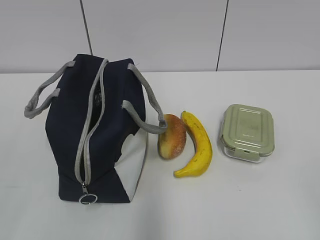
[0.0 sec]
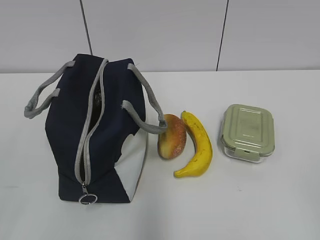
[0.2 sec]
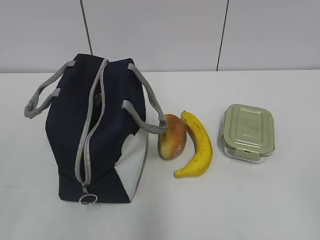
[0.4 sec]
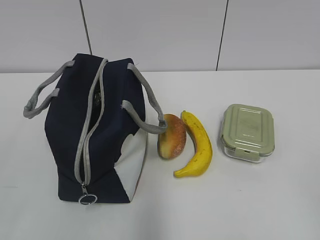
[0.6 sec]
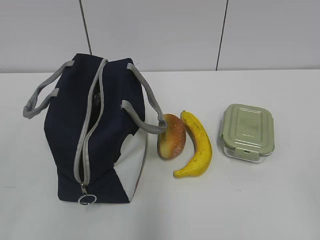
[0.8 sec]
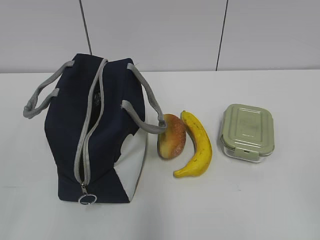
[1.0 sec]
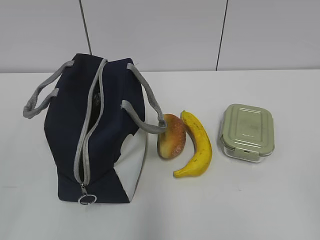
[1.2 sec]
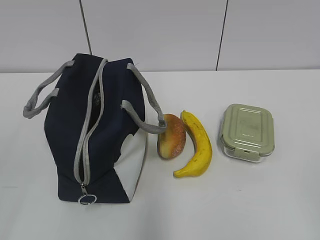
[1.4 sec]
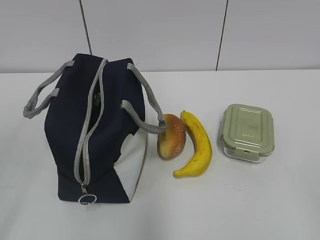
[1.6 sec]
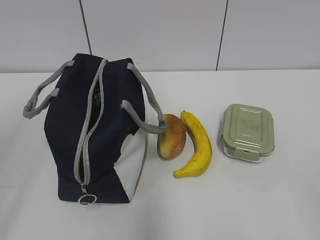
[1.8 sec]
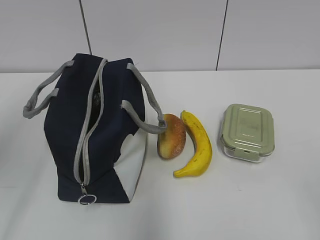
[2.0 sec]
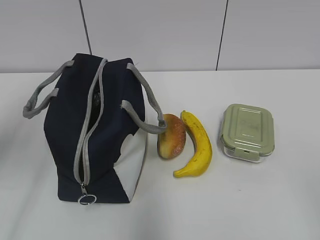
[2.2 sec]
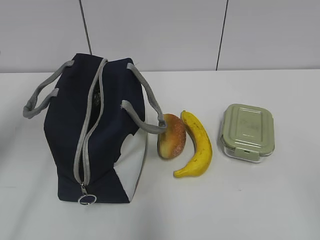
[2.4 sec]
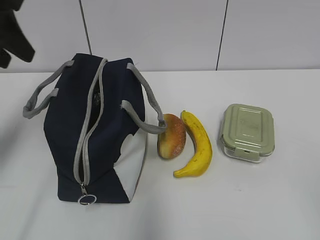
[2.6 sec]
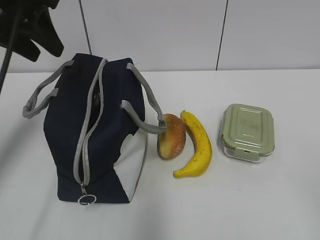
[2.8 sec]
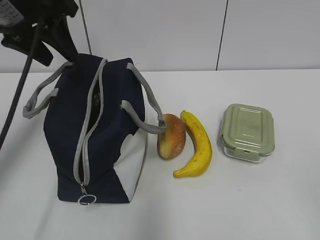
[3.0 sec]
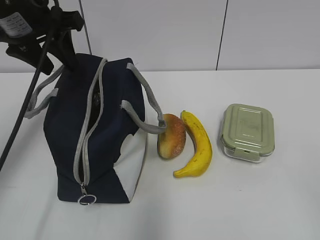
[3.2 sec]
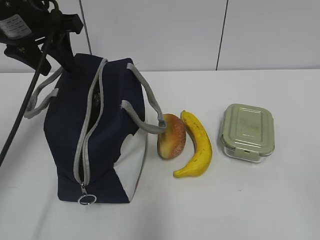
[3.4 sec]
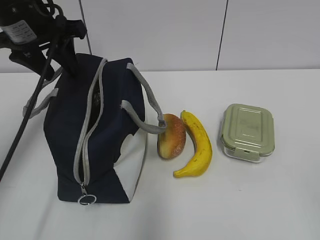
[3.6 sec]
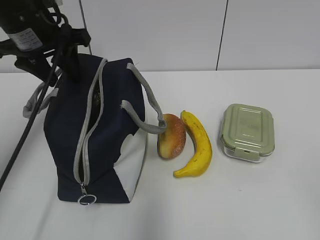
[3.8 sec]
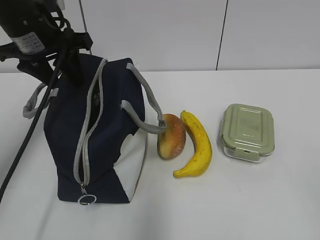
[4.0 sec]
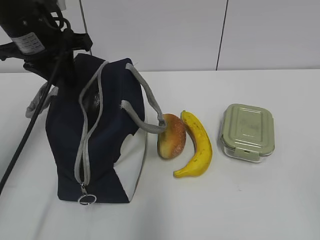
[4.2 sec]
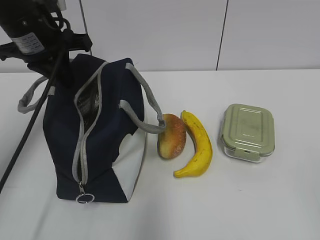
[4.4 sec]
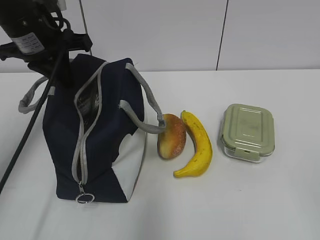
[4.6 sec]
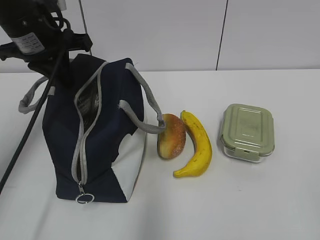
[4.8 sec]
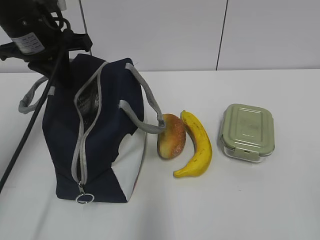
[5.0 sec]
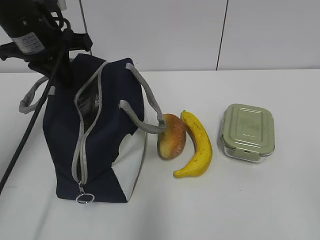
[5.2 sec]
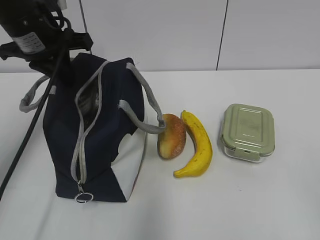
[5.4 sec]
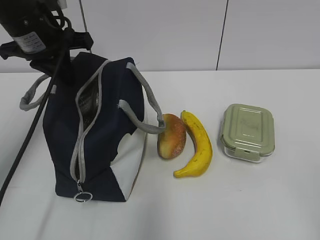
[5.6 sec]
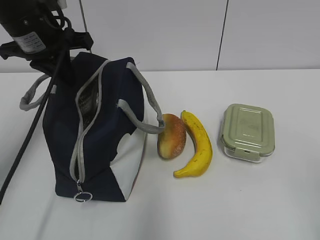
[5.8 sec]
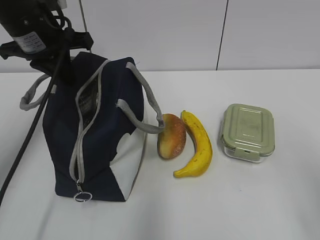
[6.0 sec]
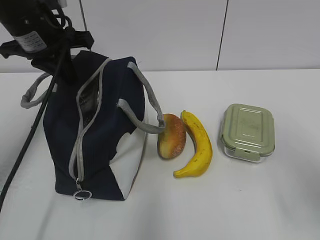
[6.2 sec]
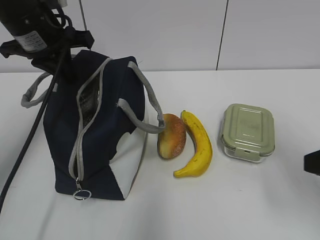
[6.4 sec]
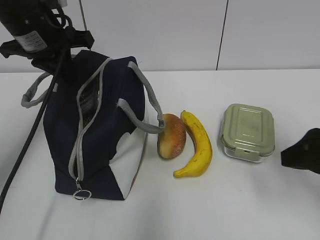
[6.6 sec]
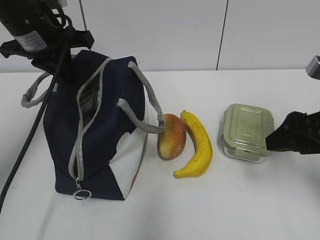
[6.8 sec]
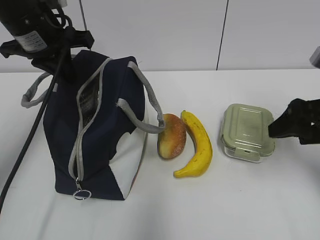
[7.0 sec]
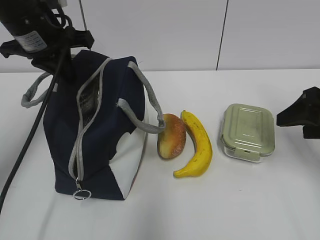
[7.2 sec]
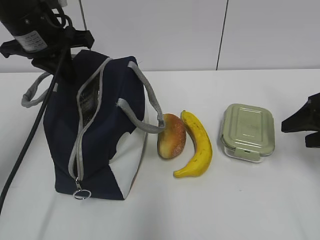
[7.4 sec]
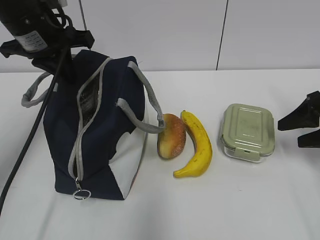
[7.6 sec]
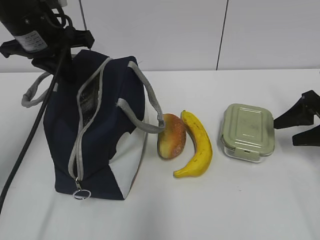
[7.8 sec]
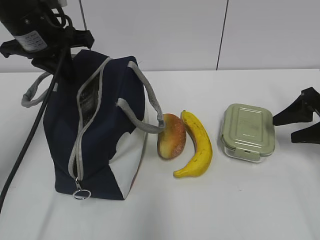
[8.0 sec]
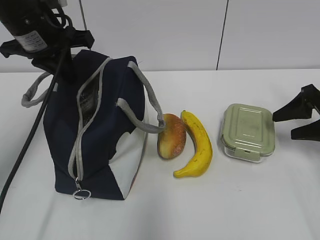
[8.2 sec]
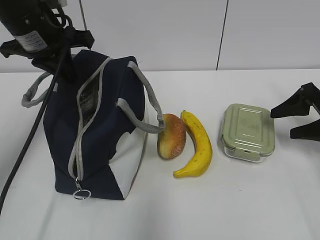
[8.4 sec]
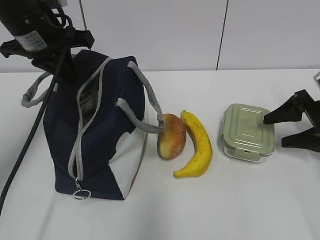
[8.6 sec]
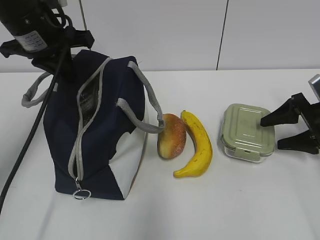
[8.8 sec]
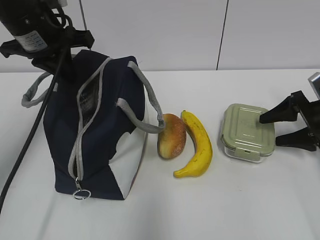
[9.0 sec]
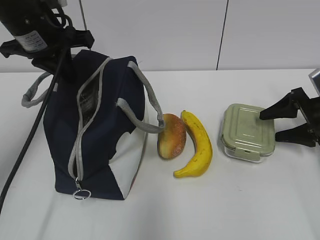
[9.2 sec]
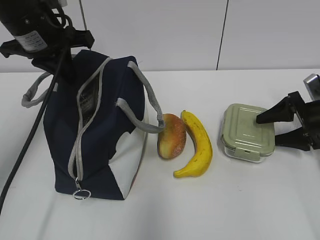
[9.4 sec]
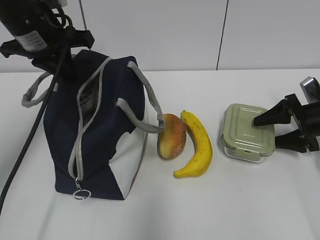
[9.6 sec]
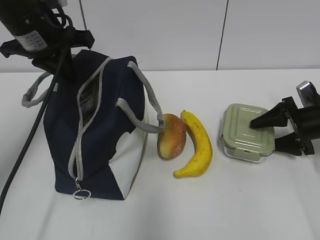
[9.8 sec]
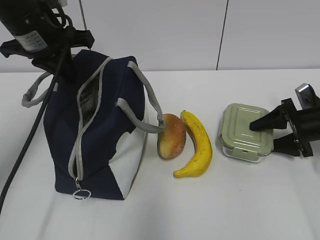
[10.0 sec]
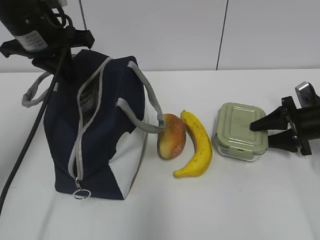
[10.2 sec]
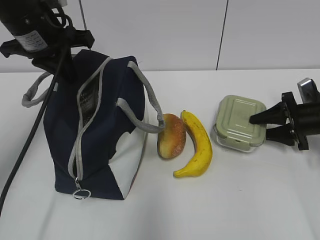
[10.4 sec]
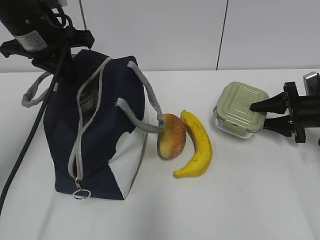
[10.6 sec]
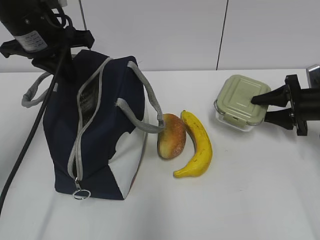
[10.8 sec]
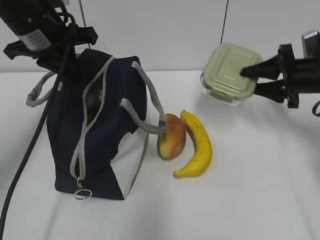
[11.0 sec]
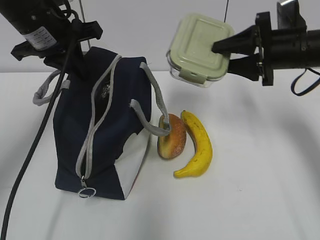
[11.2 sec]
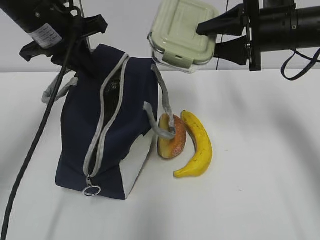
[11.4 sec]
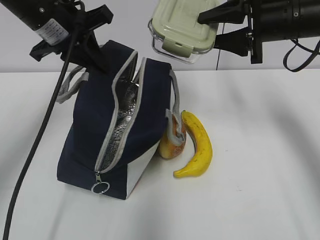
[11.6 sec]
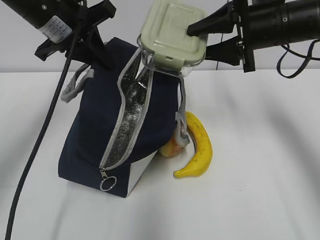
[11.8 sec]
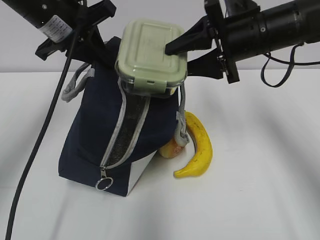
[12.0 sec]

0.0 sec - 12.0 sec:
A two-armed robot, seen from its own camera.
1.6 sec - 3.0 sec: The left gripper heads forward, covering approximately 30 cm.
3.0 sec - 4.4 sec: The left gripper goes about 5 cm downward, and closes its fingers.
4.4 sec - 6.0 sec: The right gripper heads forward, covering some 10 cm.
6.0 sec - 7.6 sec: The right gripper is displaced forward by some 25 cm.
7.6 sec - 9.0 sec: The right gripper shifts by roughly 5 cm.
9.0 sec - 10.4 sec: The right gripper closes its fingers.
10.4 sec - 12.0 sec: The right gripper moves upward and to the left, about 25 cm.

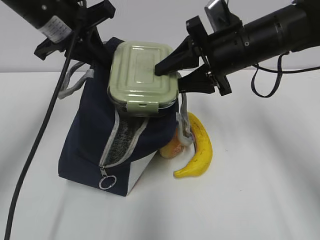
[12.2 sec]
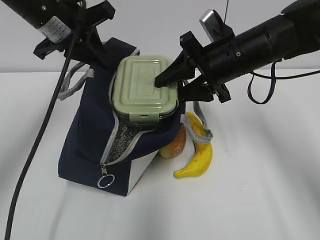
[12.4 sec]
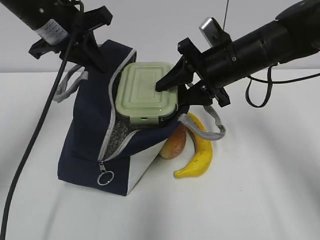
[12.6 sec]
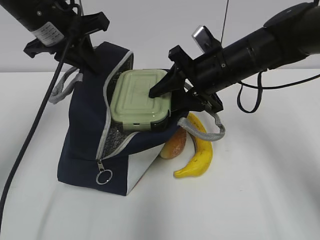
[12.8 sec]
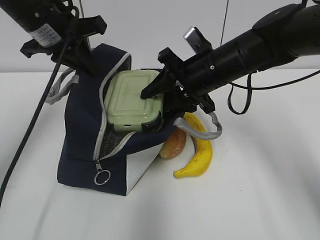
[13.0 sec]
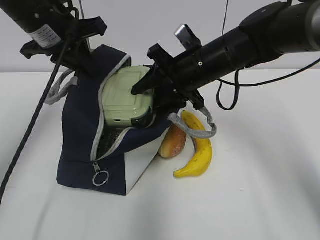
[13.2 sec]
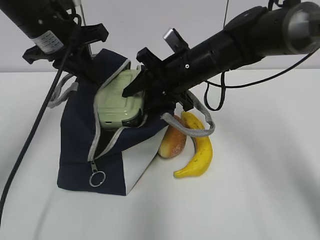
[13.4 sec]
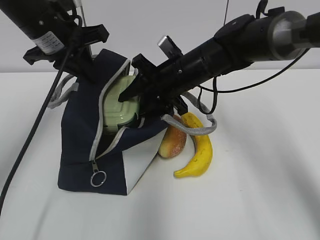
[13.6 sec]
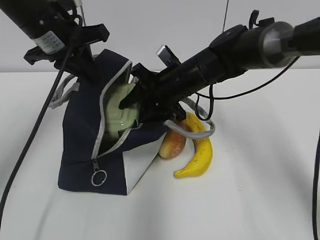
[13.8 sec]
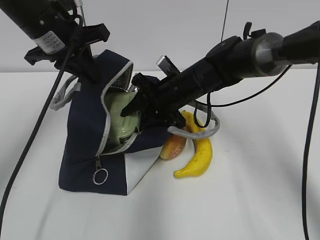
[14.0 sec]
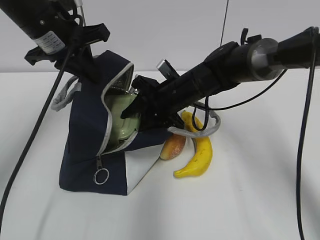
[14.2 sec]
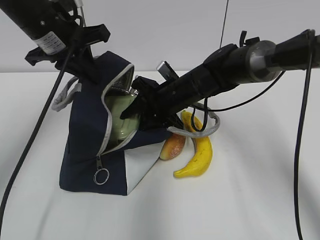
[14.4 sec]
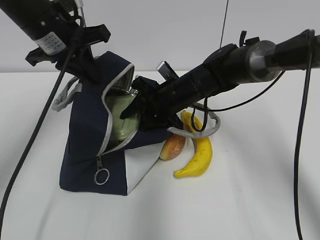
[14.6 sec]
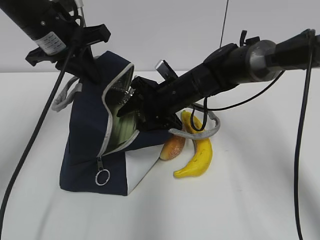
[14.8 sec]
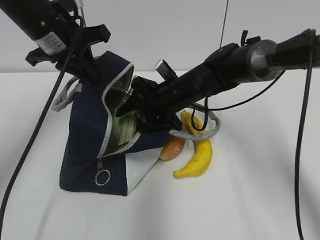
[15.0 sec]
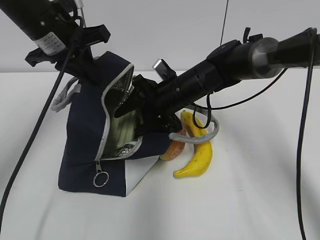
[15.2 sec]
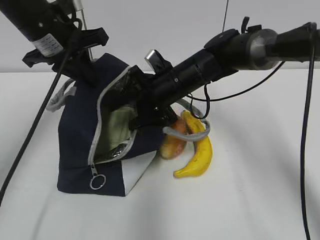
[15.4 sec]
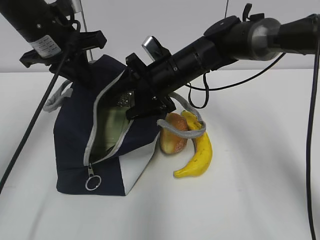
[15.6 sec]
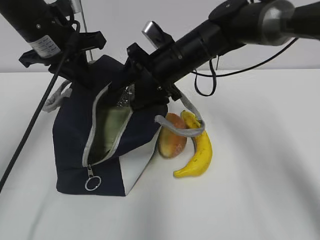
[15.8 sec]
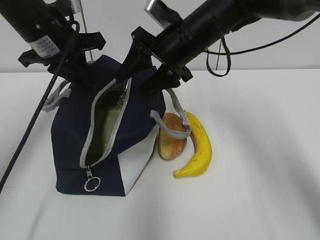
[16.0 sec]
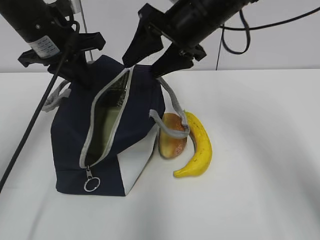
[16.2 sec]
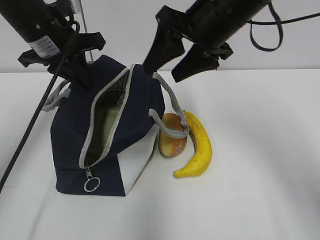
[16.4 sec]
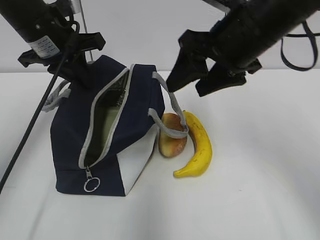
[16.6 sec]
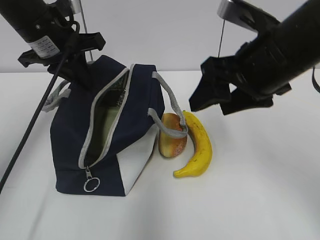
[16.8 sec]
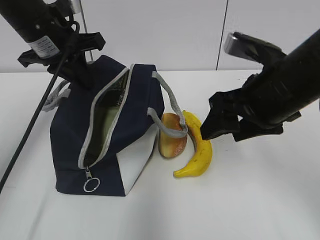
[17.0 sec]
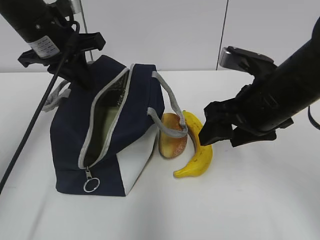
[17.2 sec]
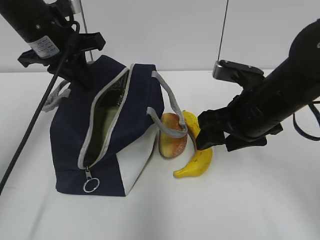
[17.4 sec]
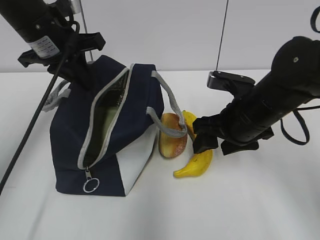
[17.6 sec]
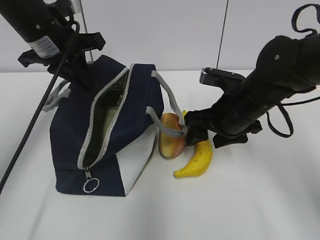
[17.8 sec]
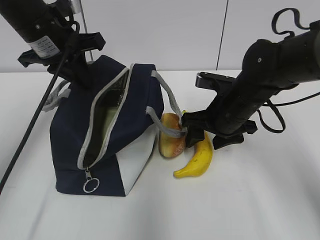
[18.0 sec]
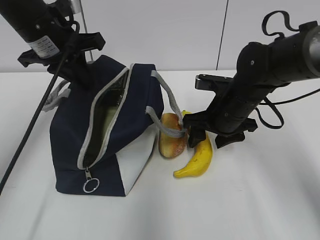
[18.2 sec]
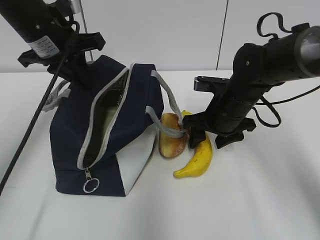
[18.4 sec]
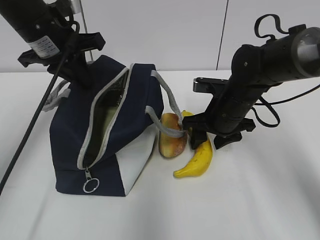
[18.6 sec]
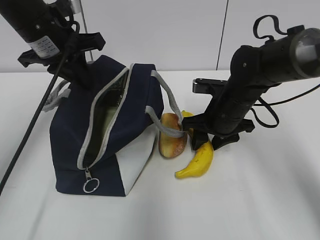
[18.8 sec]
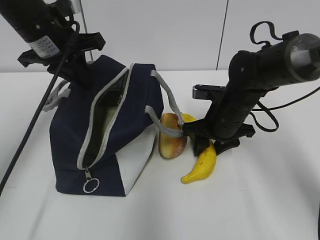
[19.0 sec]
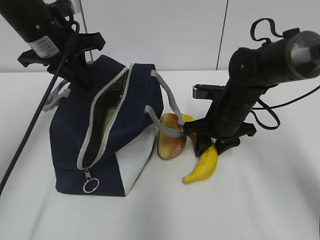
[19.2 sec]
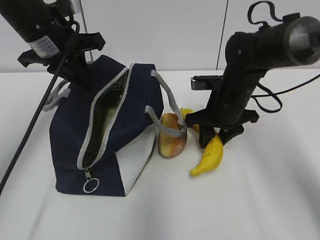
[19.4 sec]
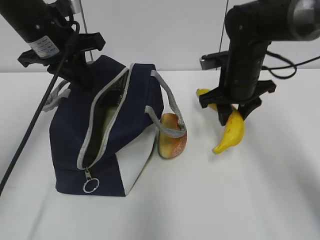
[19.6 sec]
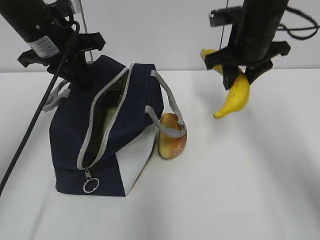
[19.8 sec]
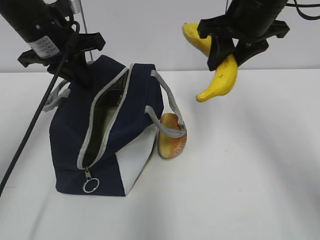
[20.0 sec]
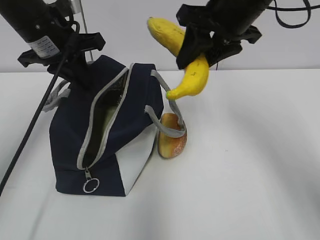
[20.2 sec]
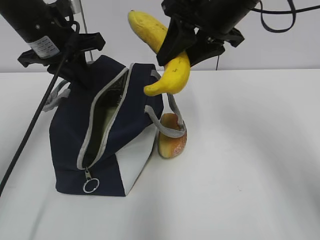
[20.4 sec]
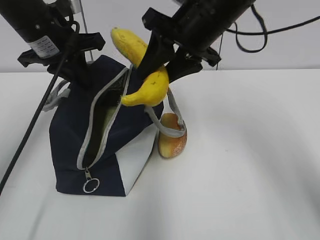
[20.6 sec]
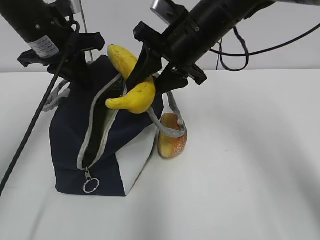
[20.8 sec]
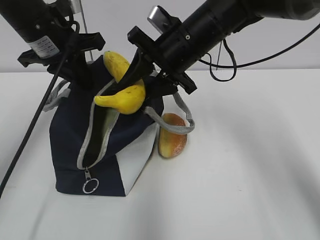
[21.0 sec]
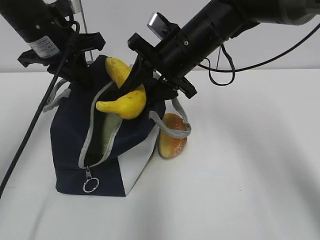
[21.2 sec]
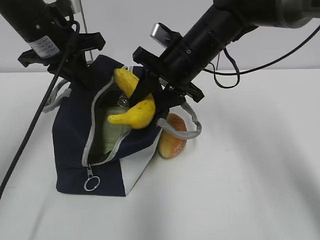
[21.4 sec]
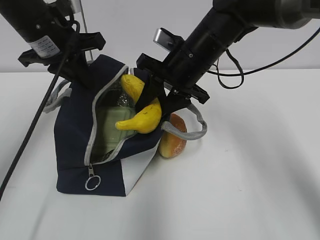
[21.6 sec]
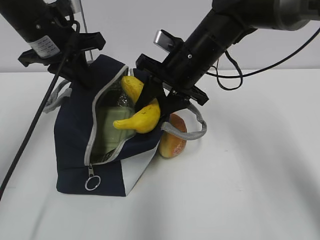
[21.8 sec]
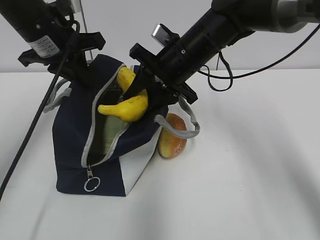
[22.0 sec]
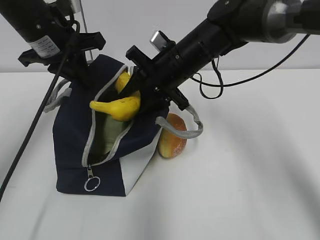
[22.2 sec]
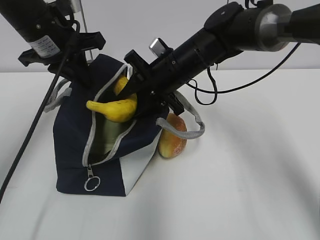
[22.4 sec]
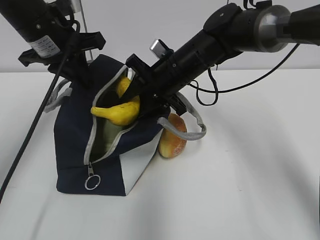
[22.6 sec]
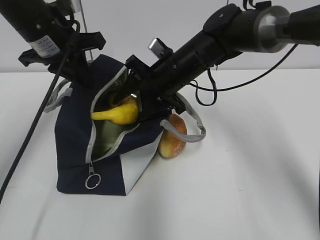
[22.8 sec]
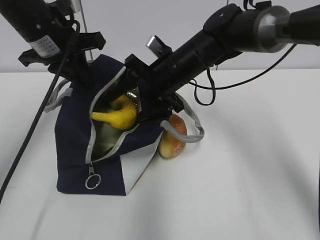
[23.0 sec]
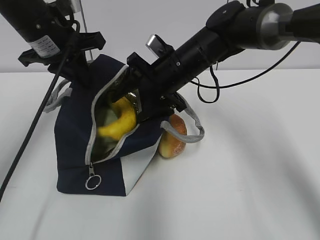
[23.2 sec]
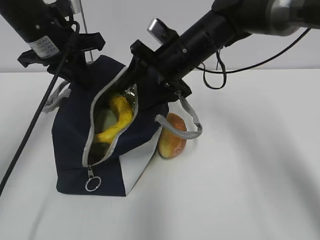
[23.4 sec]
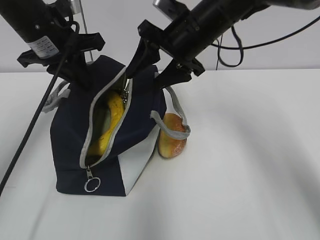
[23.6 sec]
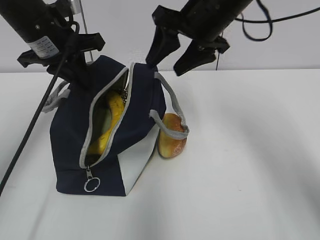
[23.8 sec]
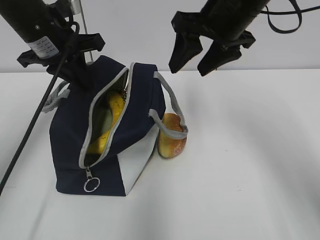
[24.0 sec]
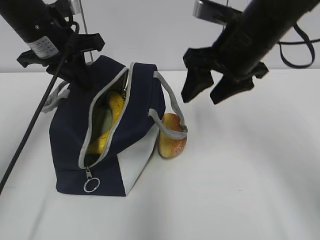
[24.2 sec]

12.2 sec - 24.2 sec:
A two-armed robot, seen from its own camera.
12.2 sec - 13.8 sec: The right gripper travels downward and to the left by approximately 10 cm.
13.8 sec - 15.2 sec: The grippers stay close to where they were, moving slightly.
15.2 sec - 16.6 sec: The right gripper travels upward and backward by approximately 20 cm.
16.6 sec - 18.2 sec: The right gripper travels downward by roughly 15 cm.
18.2 sec - 19.8 sec: The right gripper is displaced upward by some 10 cm.
19.8 sec - 21.2 sec: The right gripper travels to the left by roughly 10 cm.
21.2 sec - 22.6 sec: The right gripper goes roughly 5 cm downward.
22.6 sec - 24.2 sec: The right gripper shifts some 15 cm upward, to the right and backward.
